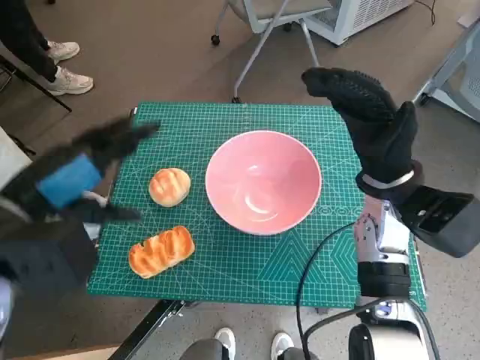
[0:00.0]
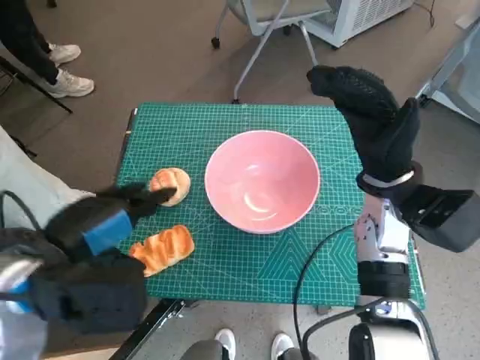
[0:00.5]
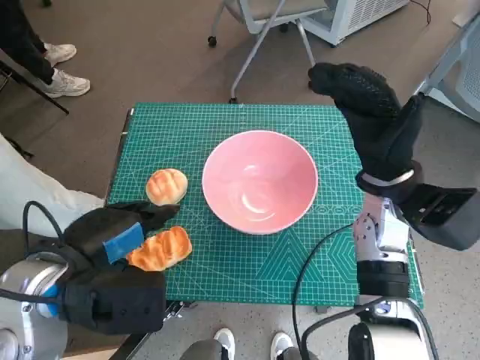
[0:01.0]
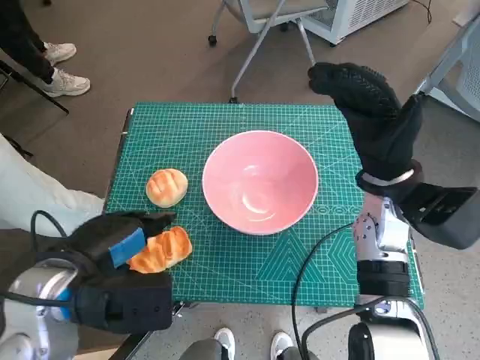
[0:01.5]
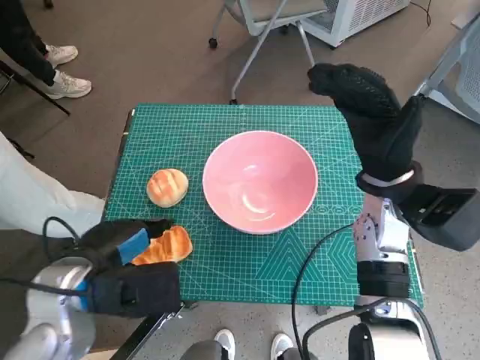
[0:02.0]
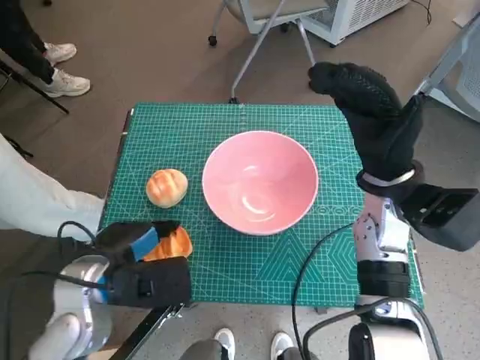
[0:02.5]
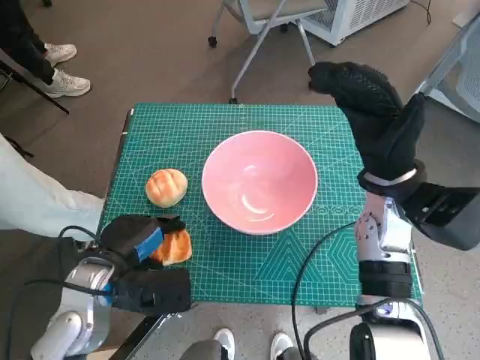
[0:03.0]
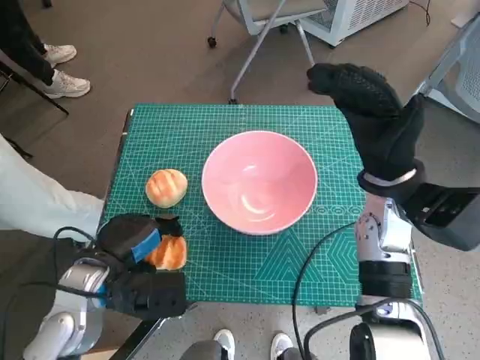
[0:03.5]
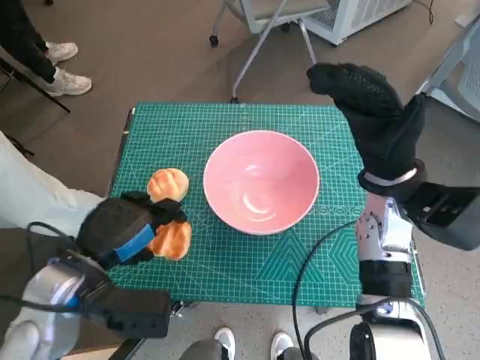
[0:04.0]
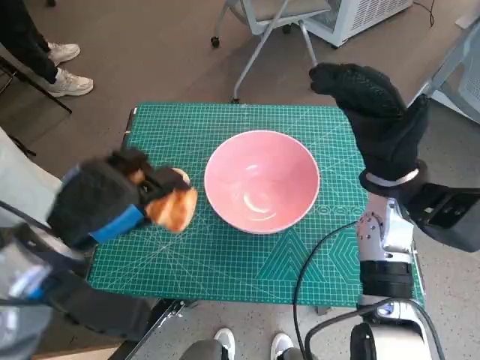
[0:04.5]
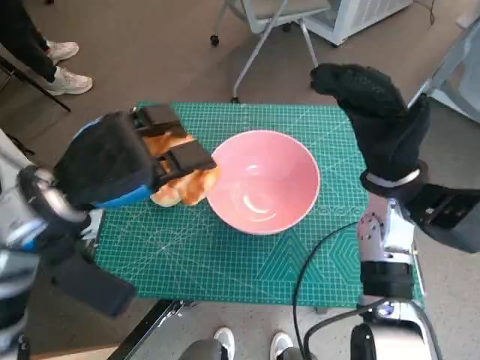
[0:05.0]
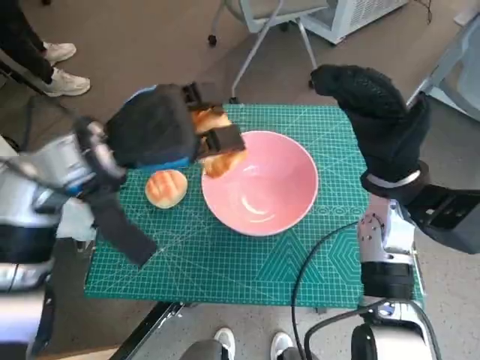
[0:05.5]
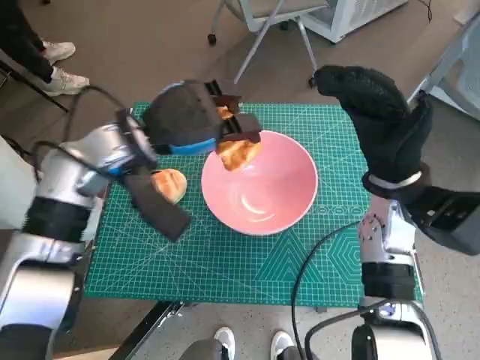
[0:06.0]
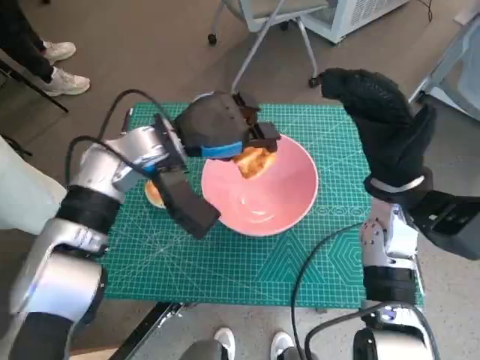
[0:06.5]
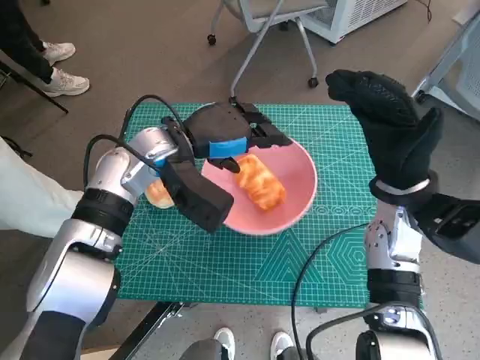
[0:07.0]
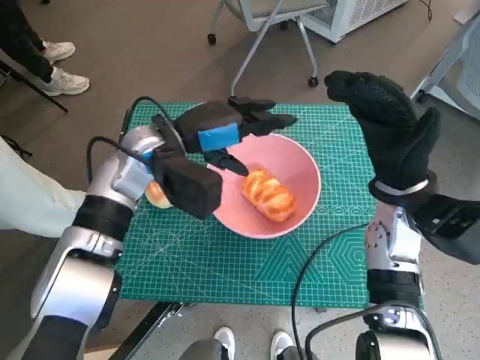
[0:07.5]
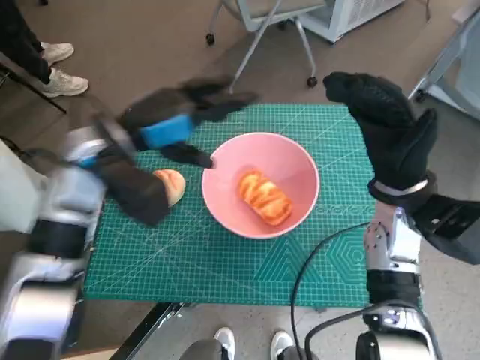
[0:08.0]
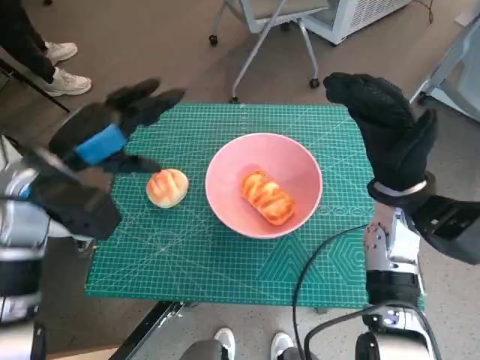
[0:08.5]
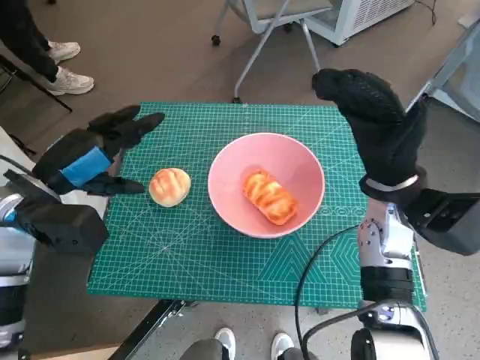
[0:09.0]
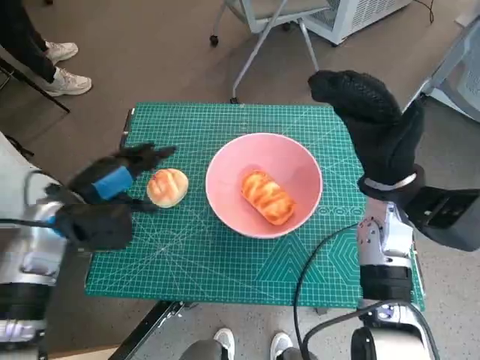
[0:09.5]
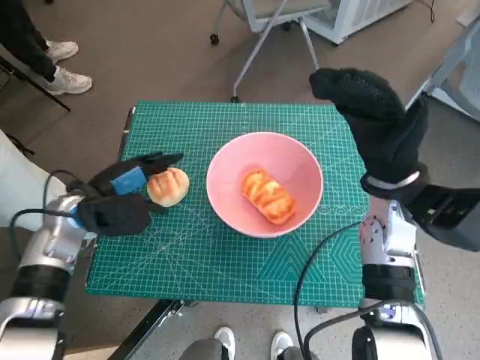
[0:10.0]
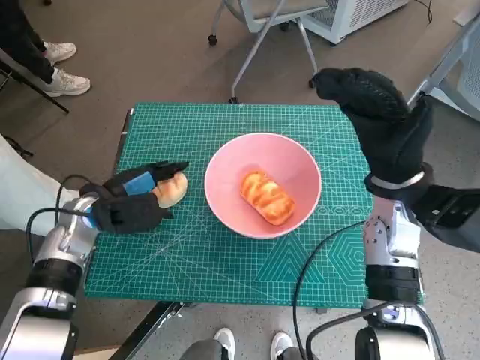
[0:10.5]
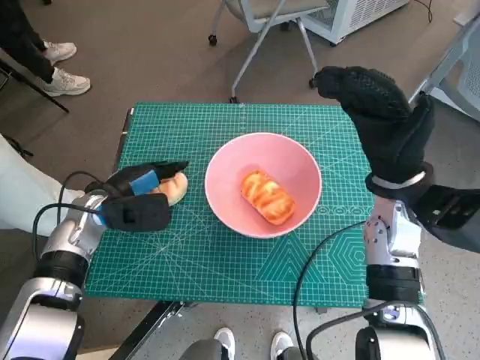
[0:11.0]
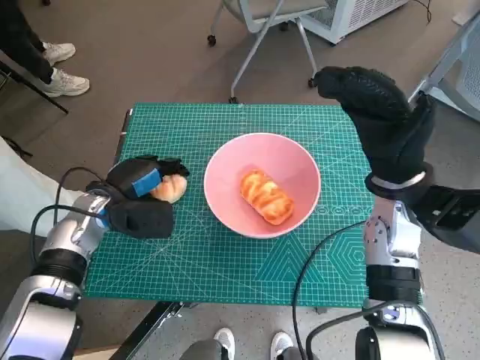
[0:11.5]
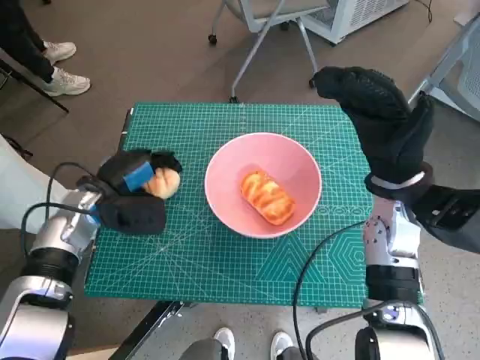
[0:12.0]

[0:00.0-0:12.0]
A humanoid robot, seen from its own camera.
Task of the whole recording: Push the bowl into the center of the table and put the bread into the bowl.
Step, 0:00.0 to 0:02.5: Grasp the long bread with left hand.
Step, 0:03.0 to 0:07.5: Place the long bread in pink bowl with left hand.
Step, 0:08.0 to 0:11.0: Grasp the round bread with left hand.
0:00.0 to 0:02.0: The left hand travels downward by some 10 cm.
0:04.0 to 0:06.0: The left hand shifts about 15 cm forward and upward.
0:08.0 to 0:10.0: The left hand moves downward and to the left, about 15 cm.
0:10.0 to 0:12.0: The hands move only a little.

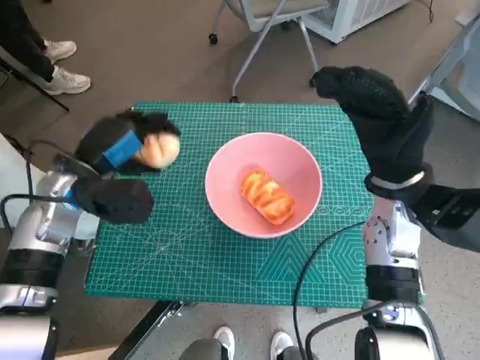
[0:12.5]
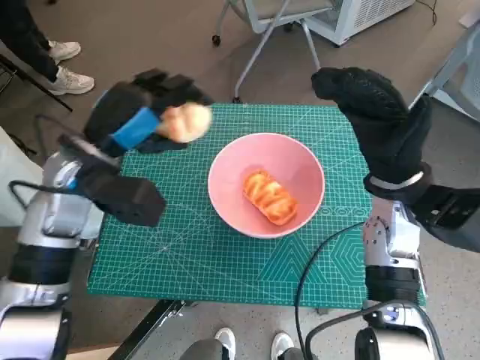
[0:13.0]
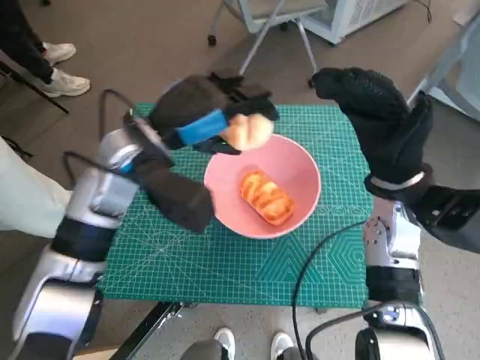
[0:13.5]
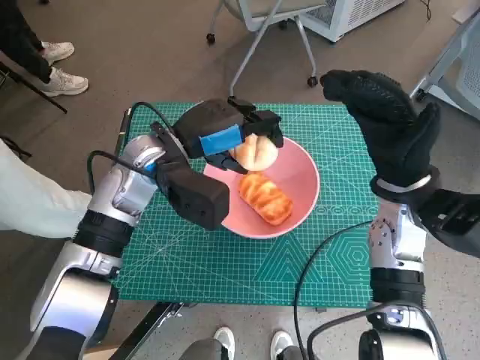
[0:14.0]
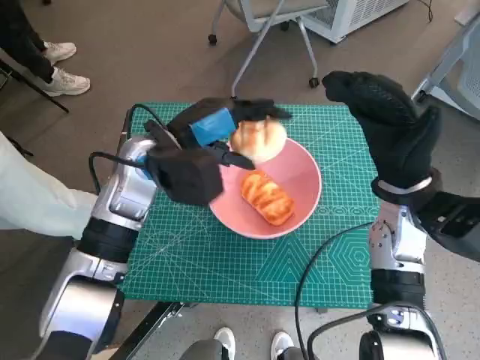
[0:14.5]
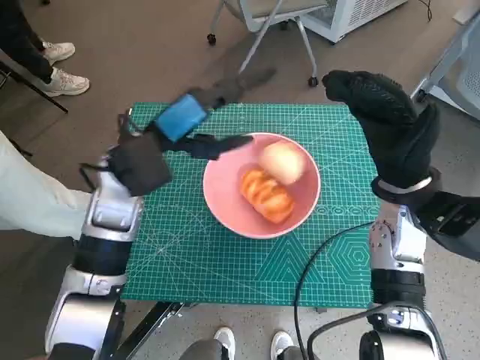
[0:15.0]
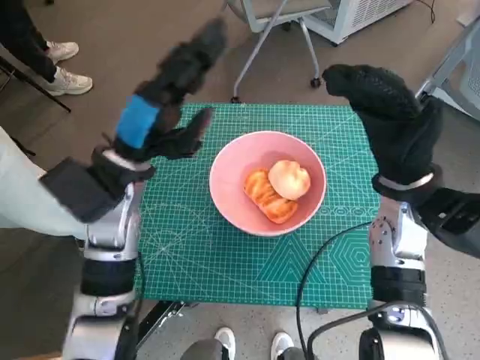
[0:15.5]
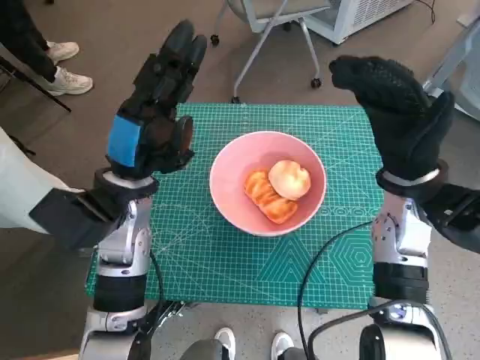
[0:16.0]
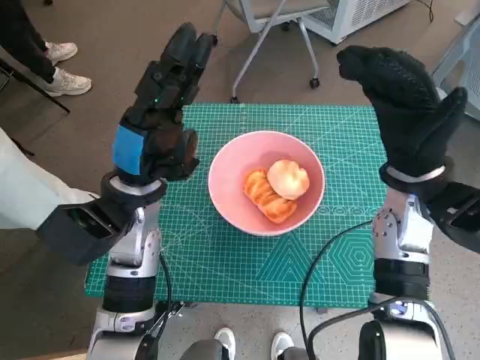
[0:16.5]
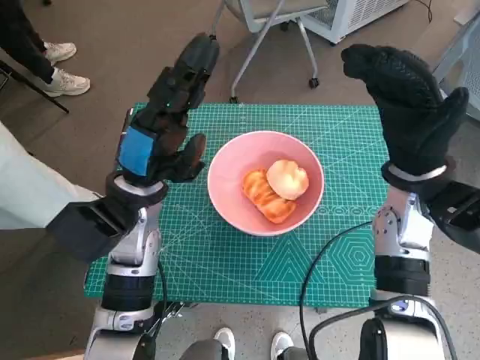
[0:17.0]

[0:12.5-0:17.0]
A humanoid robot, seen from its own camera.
Task of the whole recording: Push the bowl into the center of the table and put the bread into the bowl.
Step, 0:12.5 to 0:15.0: Place the round bread in pink bowl with left hand.
0:12.5 to 0:14.5: The left hand is displaced to the right by approximately 10 cm.
0:14.5 to 0:17.0: The left hand moves about 5 cm.

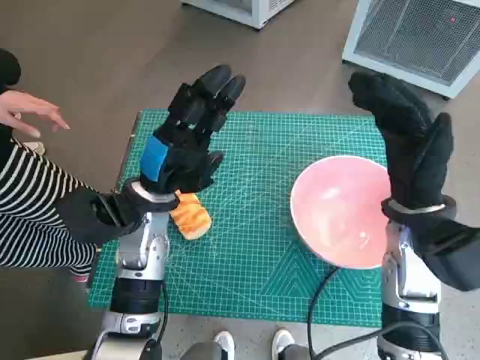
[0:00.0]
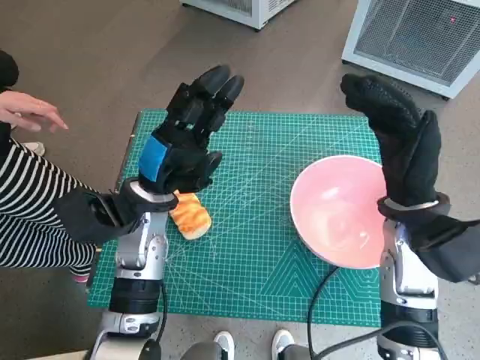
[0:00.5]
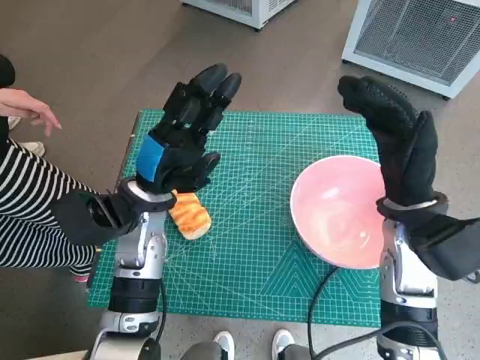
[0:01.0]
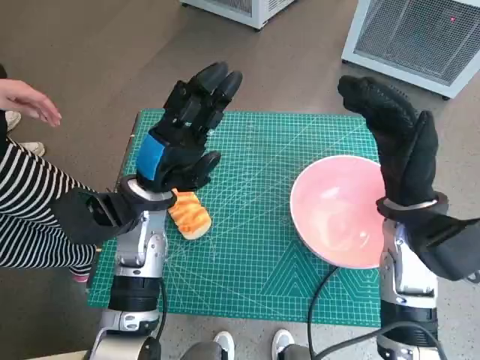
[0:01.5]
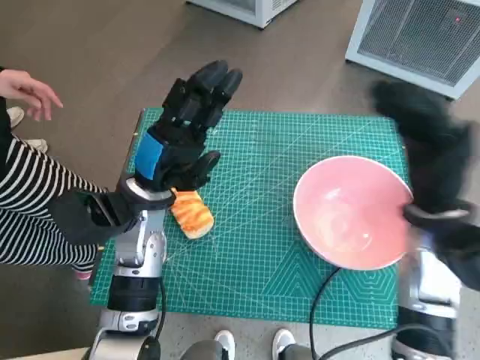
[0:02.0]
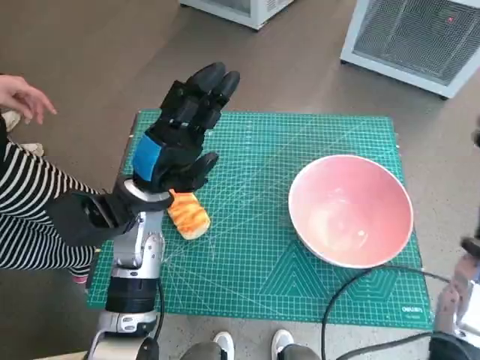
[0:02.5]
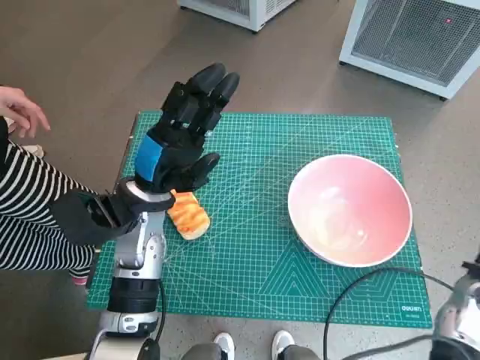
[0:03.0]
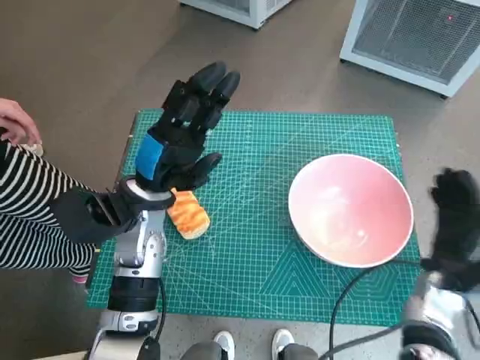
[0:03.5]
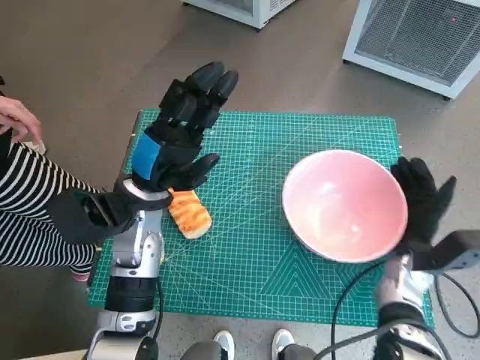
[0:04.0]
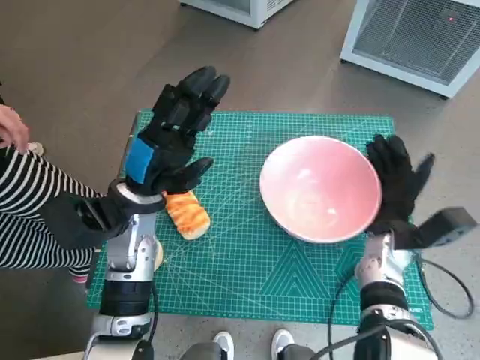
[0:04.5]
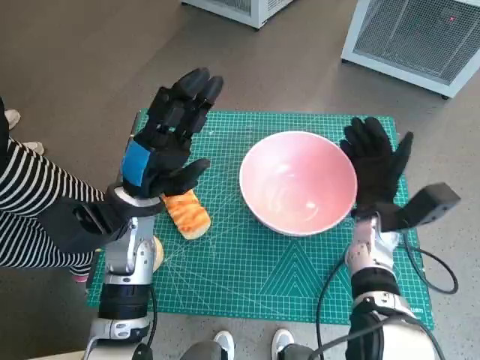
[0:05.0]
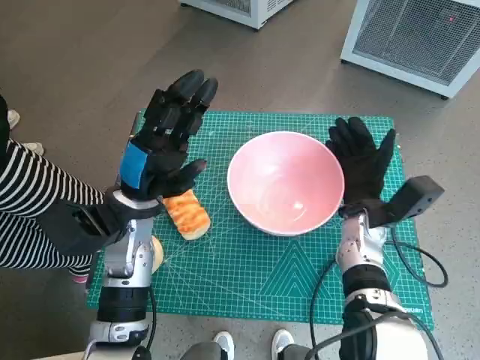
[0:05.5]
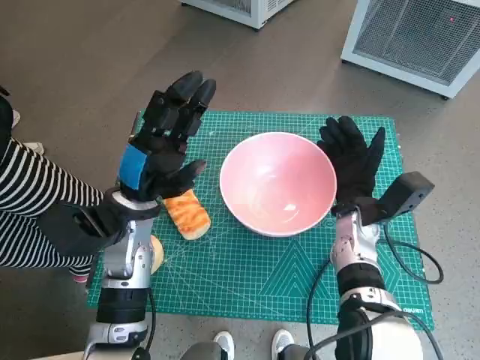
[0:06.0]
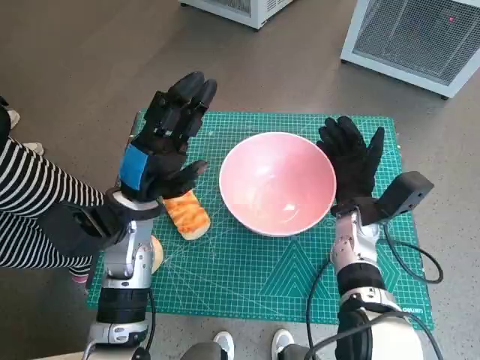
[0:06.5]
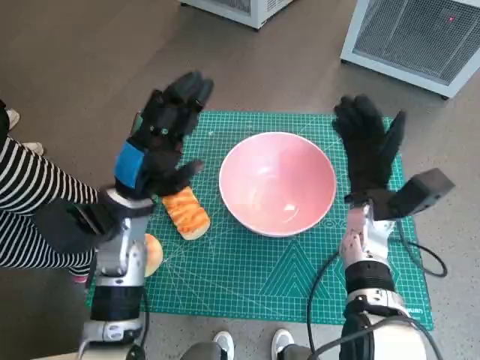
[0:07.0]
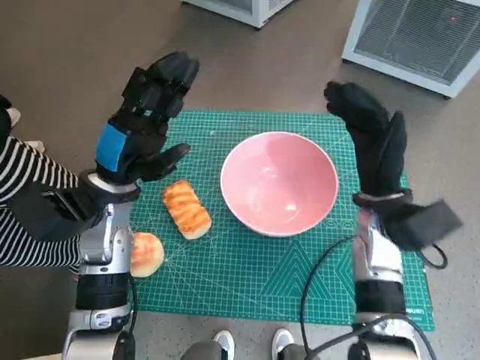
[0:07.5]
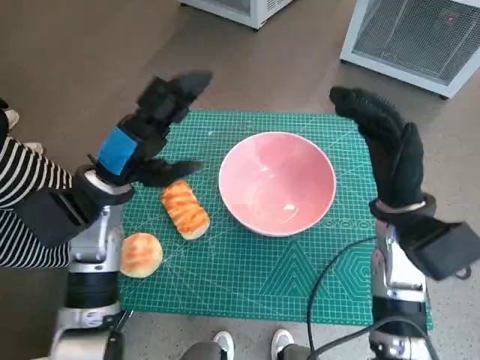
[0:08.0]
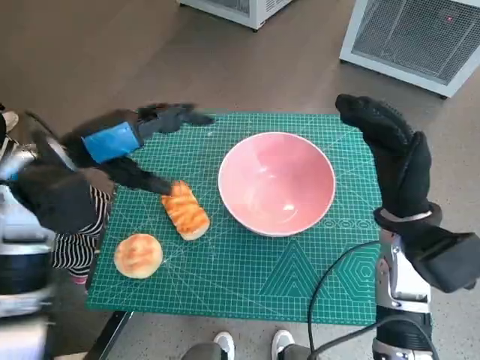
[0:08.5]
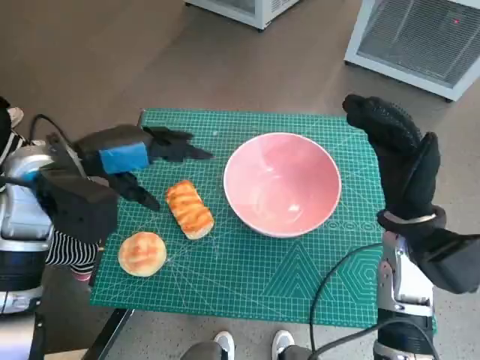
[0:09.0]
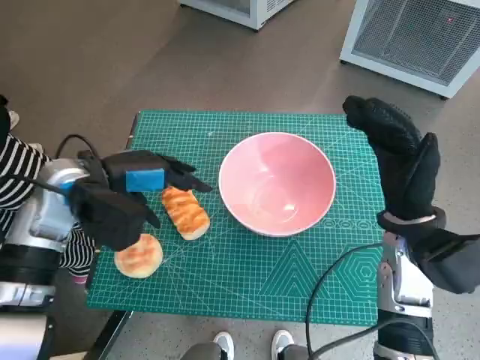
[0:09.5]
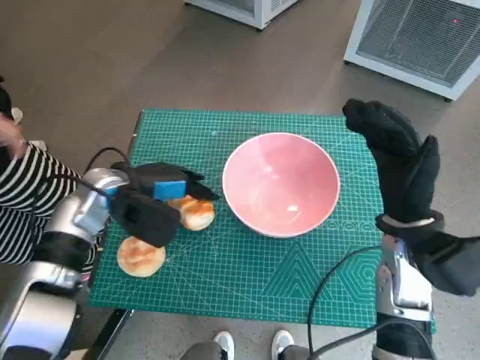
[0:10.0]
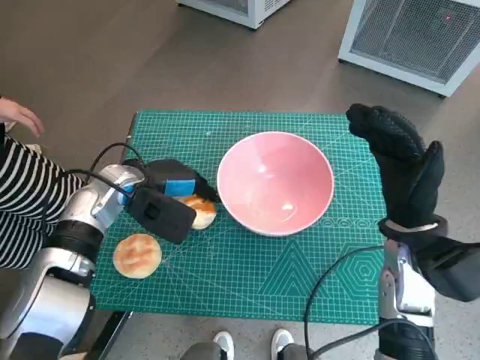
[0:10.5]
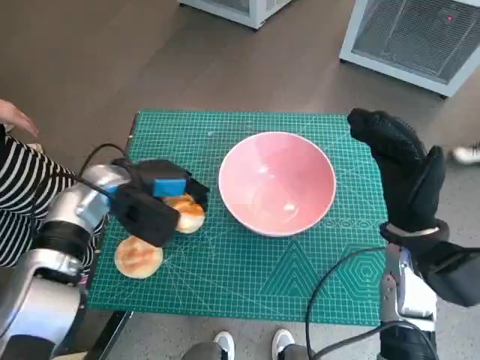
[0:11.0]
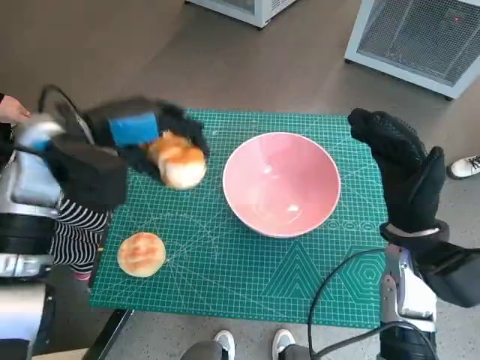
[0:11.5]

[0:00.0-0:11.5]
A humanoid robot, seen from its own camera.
Task of the whole recording: Push the bowl into the center of the table and put the bread into the bowl.
Step, 0:00.0 to 0:06.5: Move the pink bowl to the center of table with right hand.
Step, 0:07.0 to 0:10.5: Grasp the long bread with left hand.
0:02.0 to 0:04.0: The right hand moves downward, approximately 15 cm.
0:04.0 to 0:06.0: The right hand heads to the left and forward, covering some 10 cm.
0:06.0 to 0:07.5: The right hand travels upward by some 5 cm.
